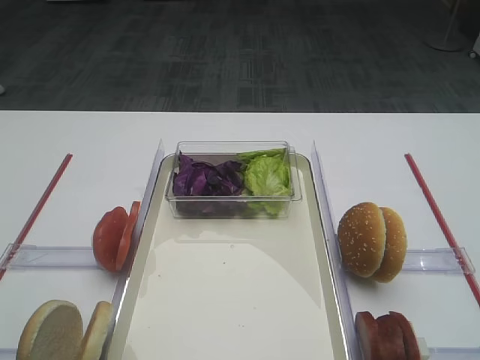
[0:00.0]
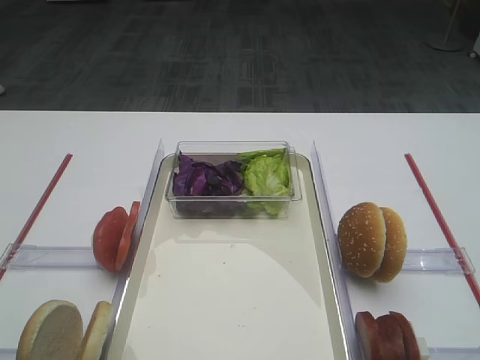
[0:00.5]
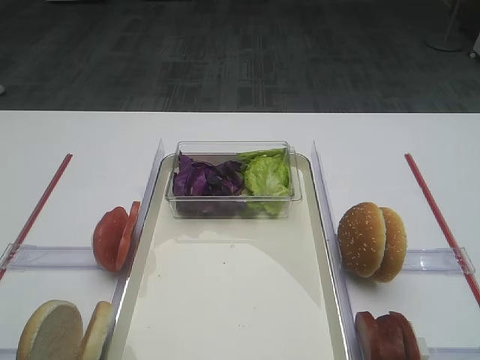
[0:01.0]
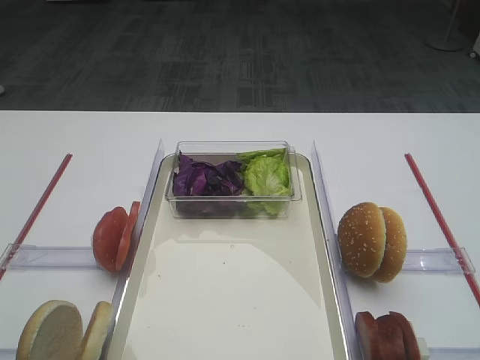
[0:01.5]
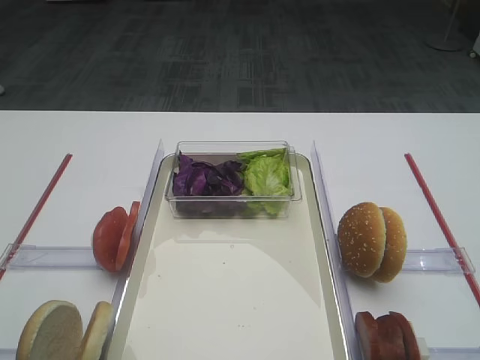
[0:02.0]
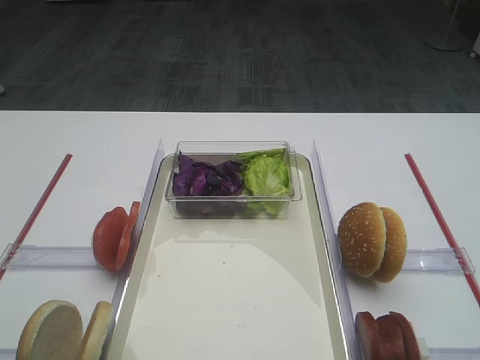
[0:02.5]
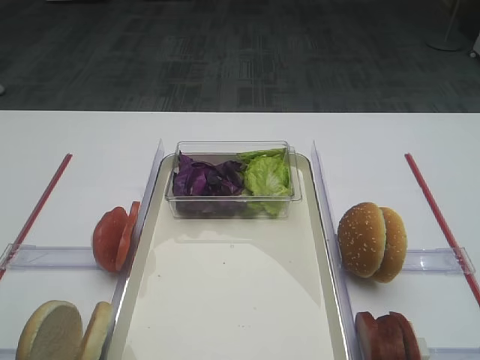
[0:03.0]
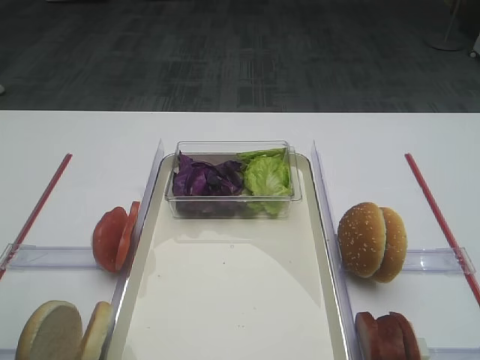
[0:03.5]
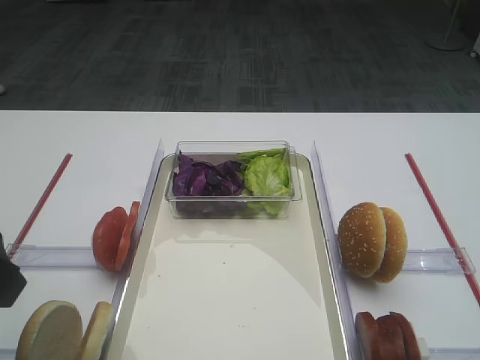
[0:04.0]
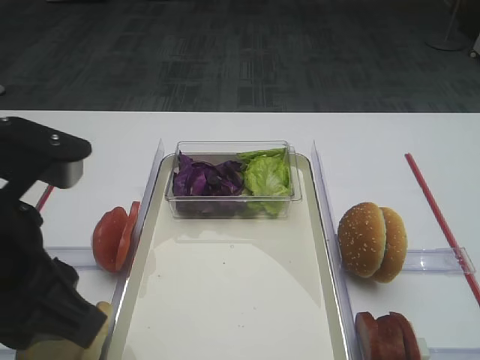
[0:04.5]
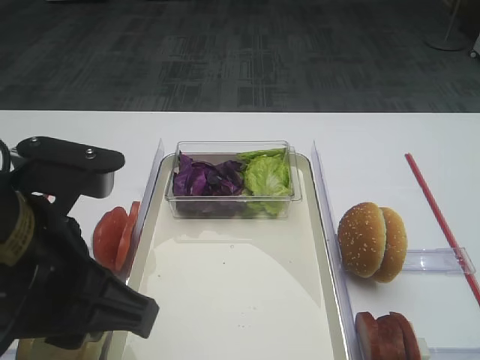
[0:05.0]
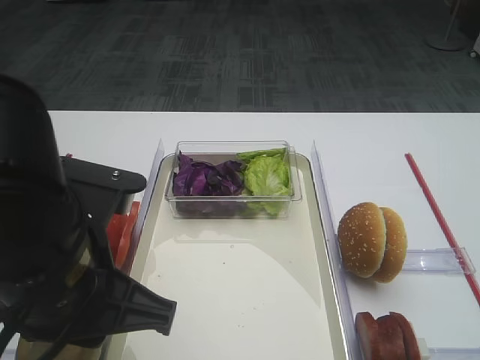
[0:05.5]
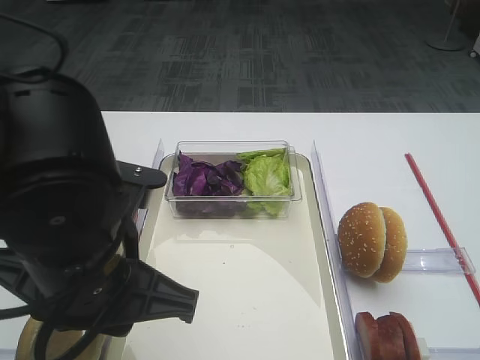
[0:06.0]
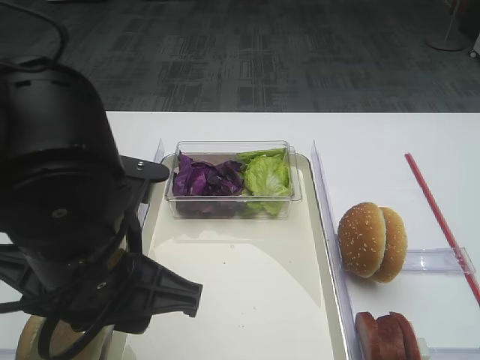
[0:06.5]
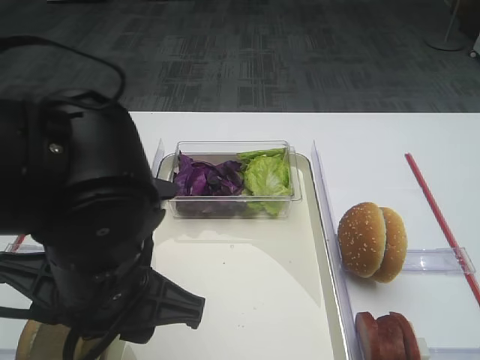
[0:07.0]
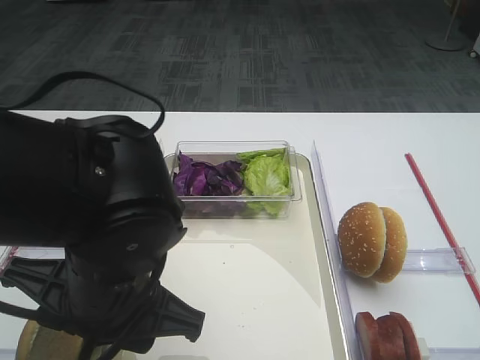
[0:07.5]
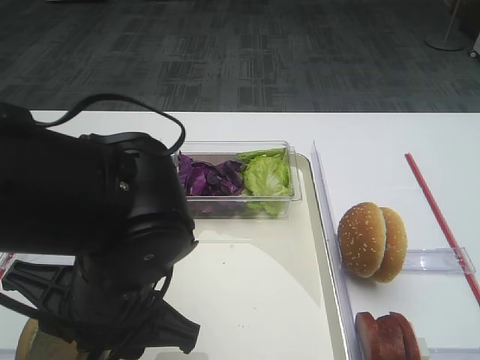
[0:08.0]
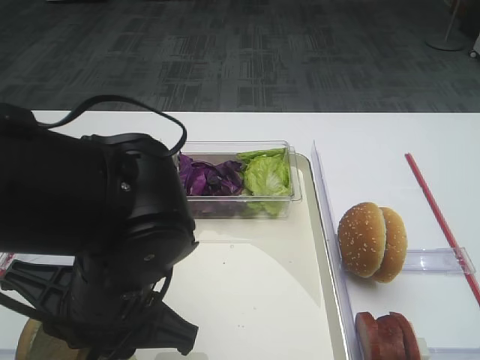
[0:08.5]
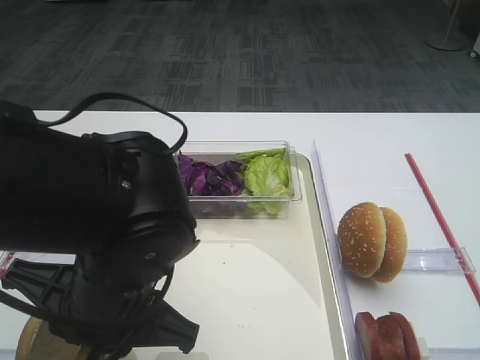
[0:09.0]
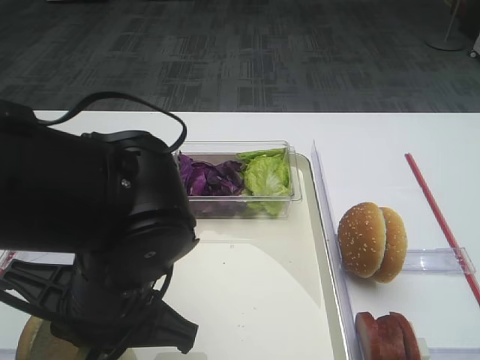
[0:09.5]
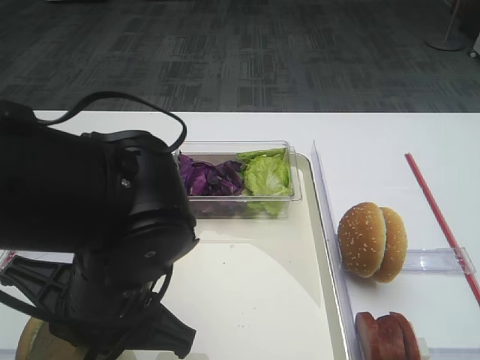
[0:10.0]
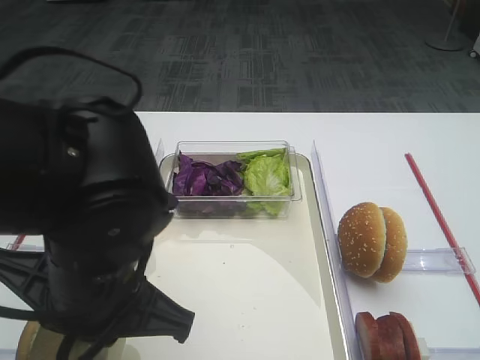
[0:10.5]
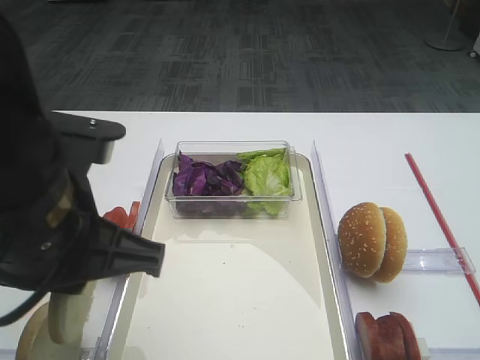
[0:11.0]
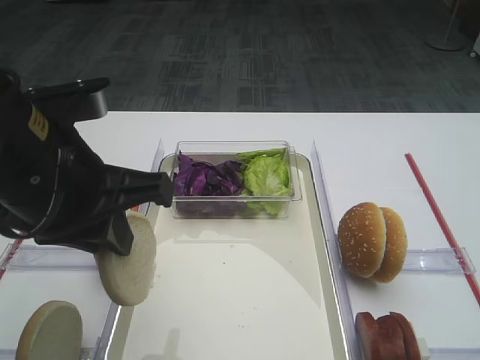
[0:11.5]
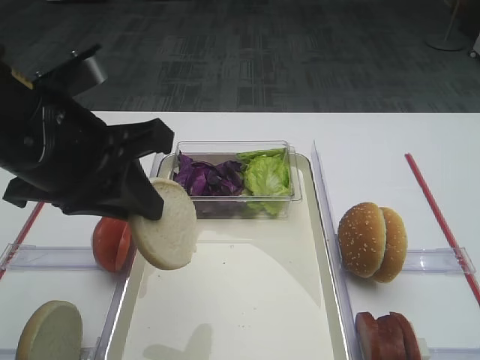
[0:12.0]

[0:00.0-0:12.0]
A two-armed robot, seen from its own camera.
Step, 0:00.0 to 0:11.0: Pick up the bread slice with the left gripper.
0:02.0 to 0:04.0: The left gripper heads forward and to the right, covering about 15 cm, and closes up.
0:04.0 to 0:06.0: The left gripper travels to the right and downward by about 15 cm.
0:06.0 to 0:08.0: The grippers make only small movements.
0:08.0 to 0:10.0: The left gripper closes its fingers.
0:10.0 to 0:12.0: The left gripper heads upward and to the left, covering some 10 cm.

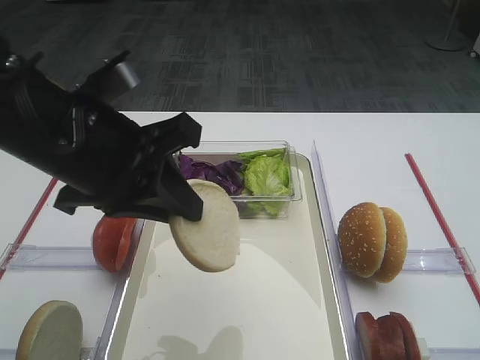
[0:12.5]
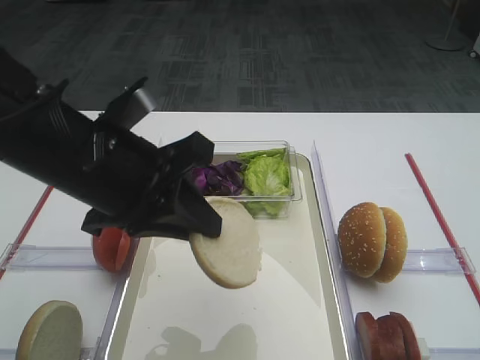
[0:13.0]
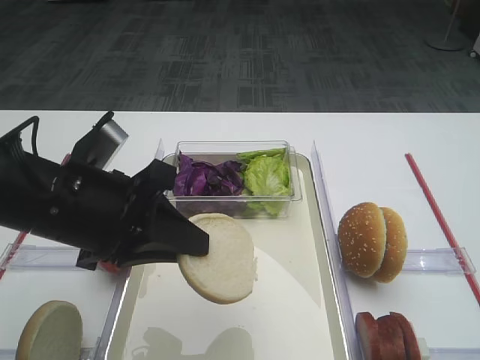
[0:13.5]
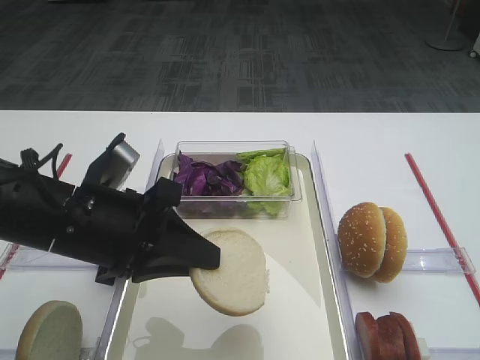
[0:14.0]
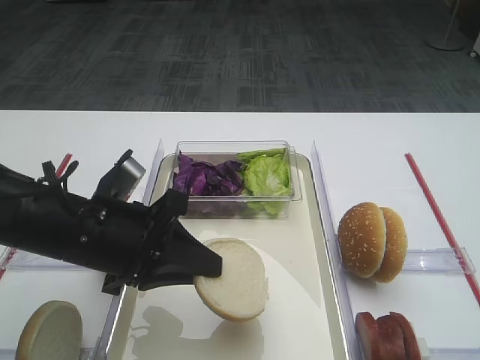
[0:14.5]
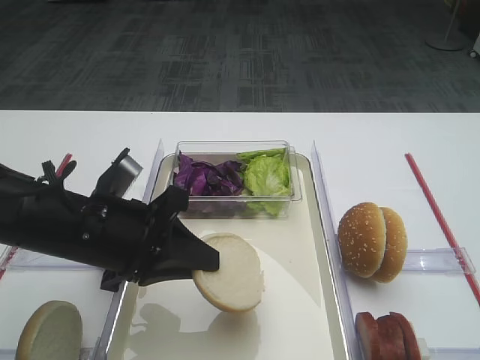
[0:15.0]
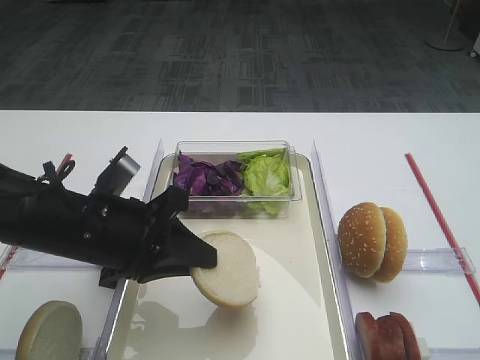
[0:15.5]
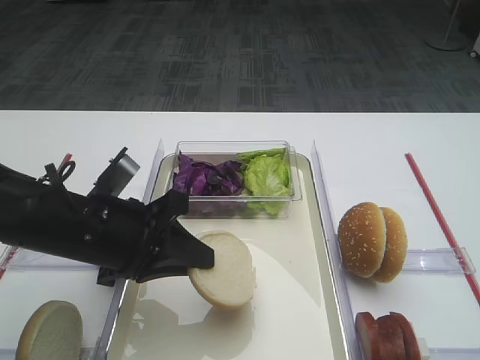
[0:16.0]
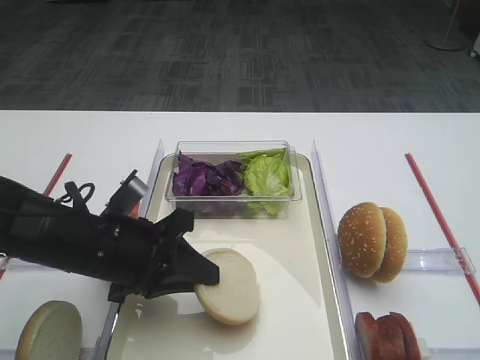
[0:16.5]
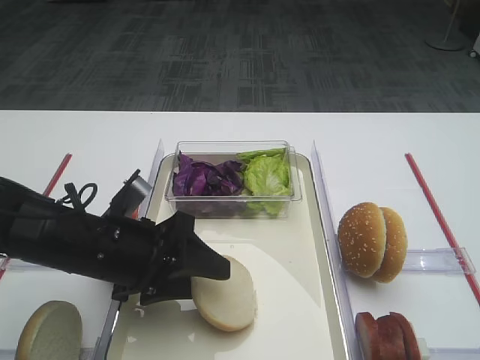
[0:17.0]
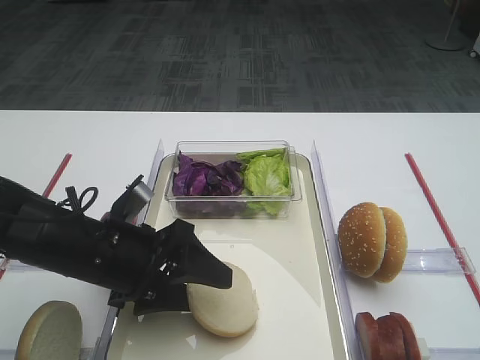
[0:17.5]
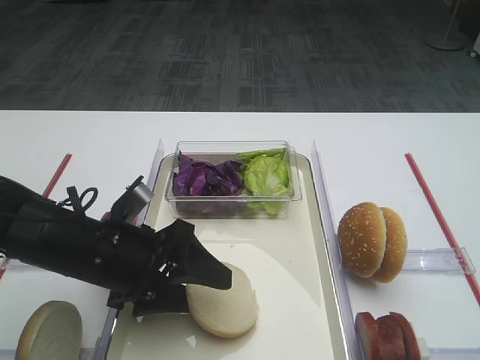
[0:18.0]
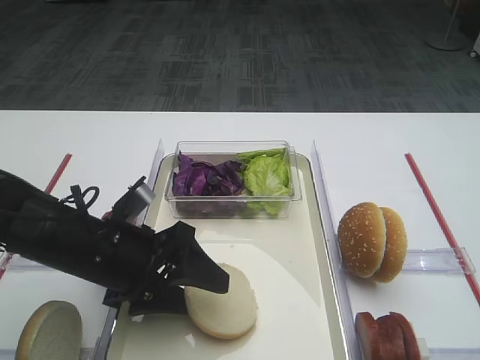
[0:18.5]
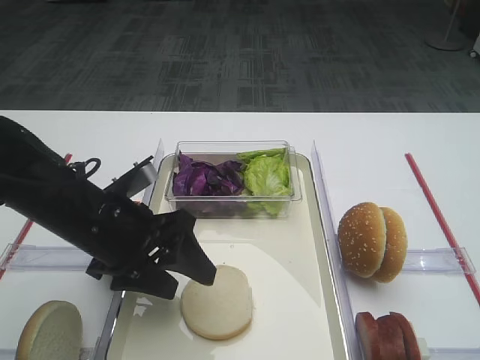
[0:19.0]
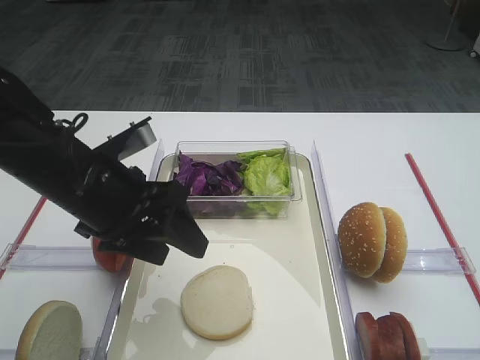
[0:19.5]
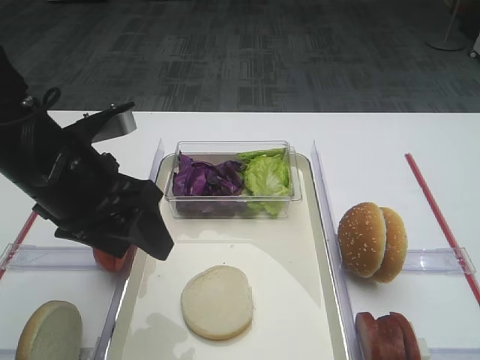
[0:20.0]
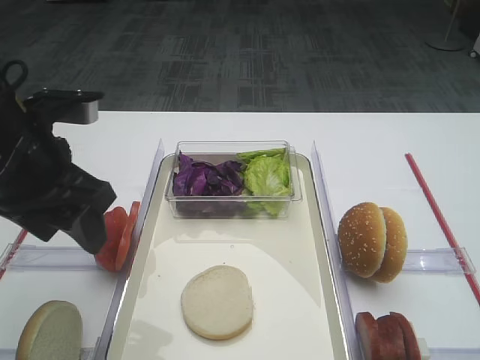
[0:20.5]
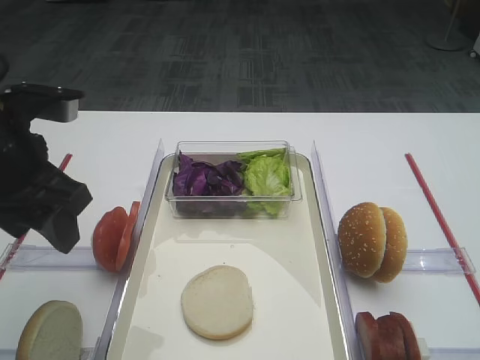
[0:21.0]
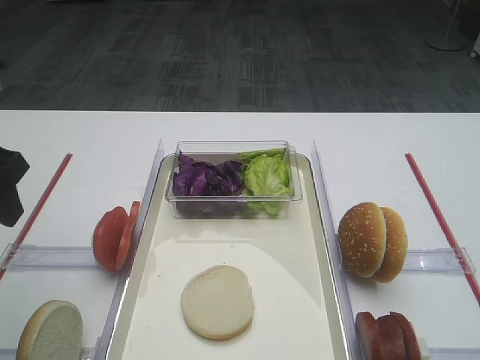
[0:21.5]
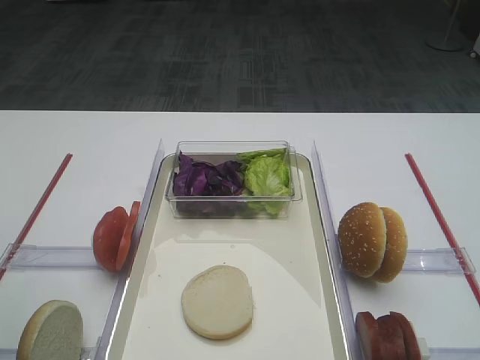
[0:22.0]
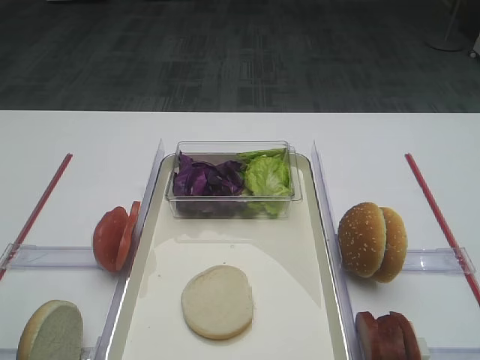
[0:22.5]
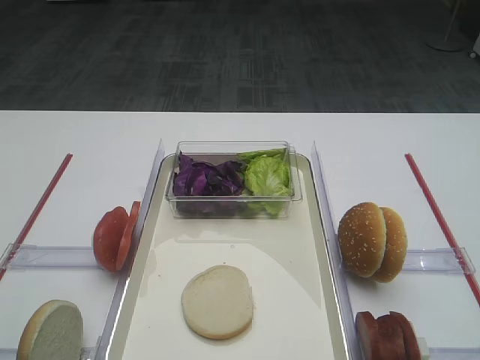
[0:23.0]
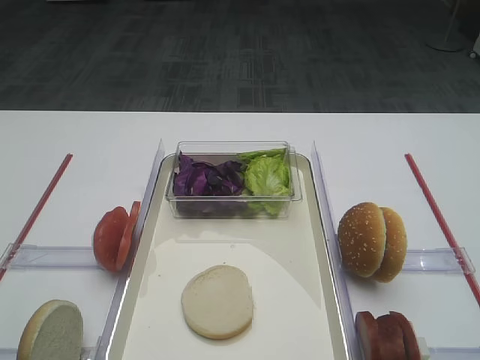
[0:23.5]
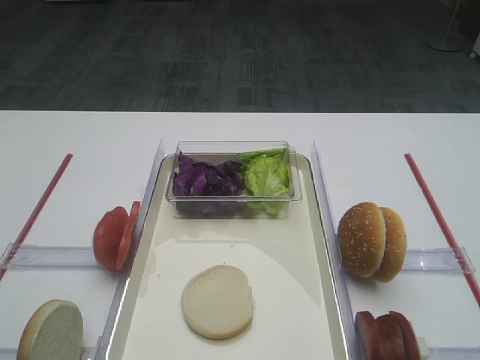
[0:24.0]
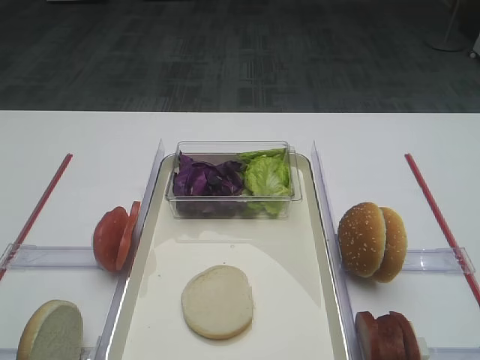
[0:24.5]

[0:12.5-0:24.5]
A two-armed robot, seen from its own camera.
Step, 0:12.5 to 0:19.5: Place the bread slice on the tray with the left gripper.
0:12.5 to 0:14.5: The left gripper travels downward by some 10 cm.
0:14.5 to 0:16.5: There are only small adjustments of the grippers.
0:16.5 to 0:18.5: The left gripper opens its fingers.
0:18.5 to 0:20.5: The left gripper goes about 15 cm upward and to the left.
0:20.5 to 0:22.5: The left gripper is displaced backward and to the left by approximately 20 cm.

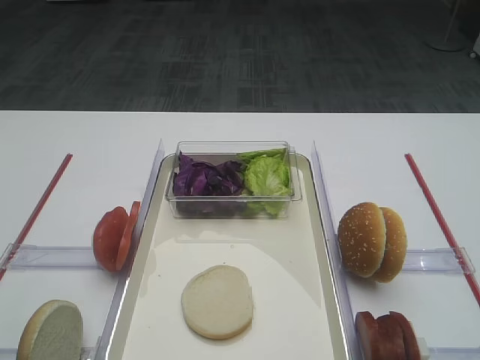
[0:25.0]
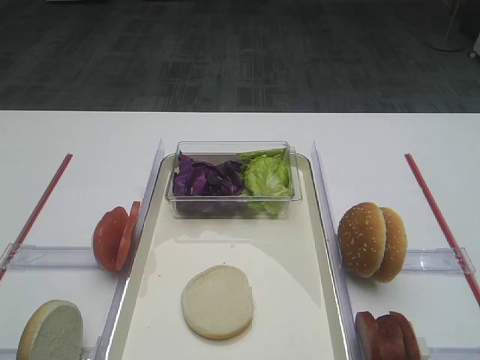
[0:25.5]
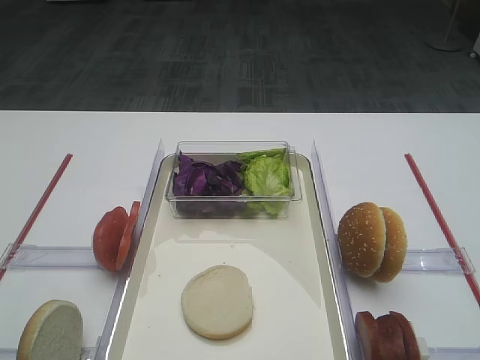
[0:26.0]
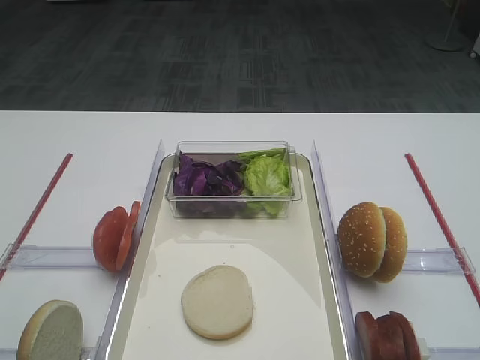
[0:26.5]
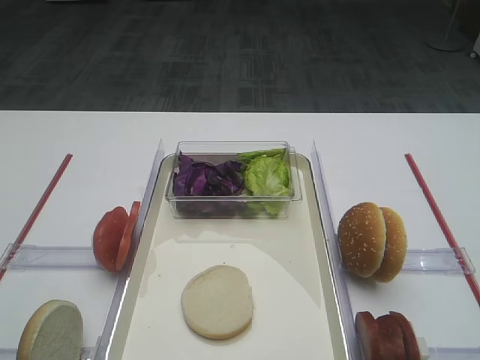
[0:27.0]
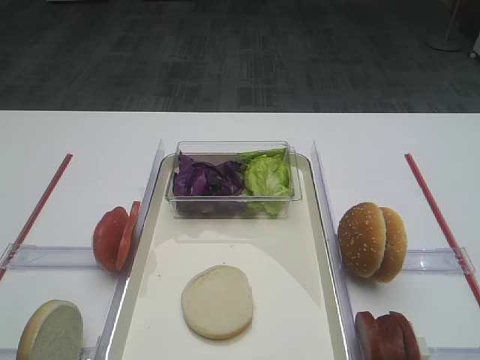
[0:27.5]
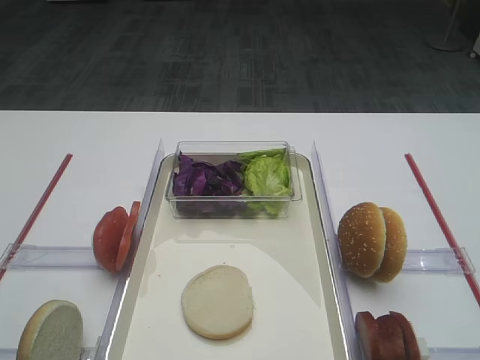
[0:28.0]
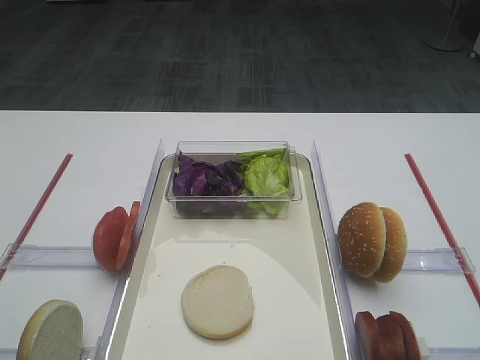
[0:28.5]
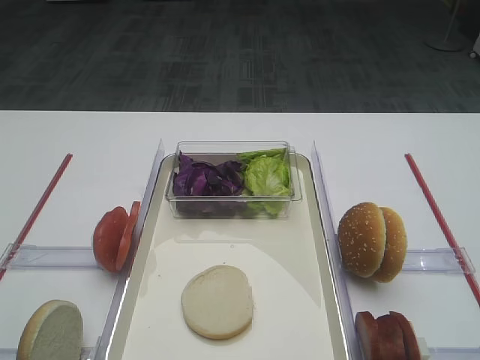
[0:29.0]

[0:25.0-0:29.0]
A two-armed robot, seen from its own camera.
0:25.0 to 0:29.0: Both grippers stay put.
